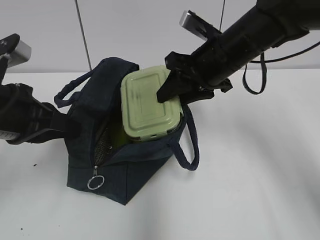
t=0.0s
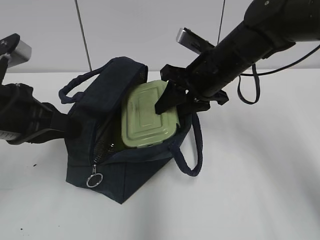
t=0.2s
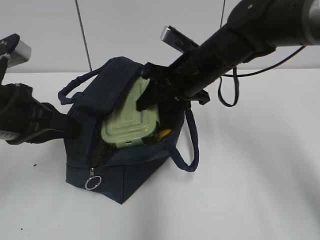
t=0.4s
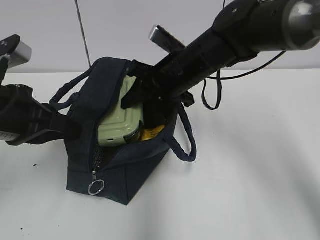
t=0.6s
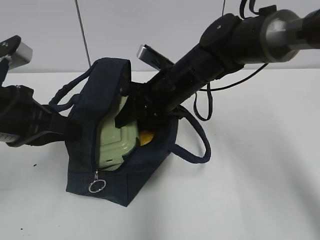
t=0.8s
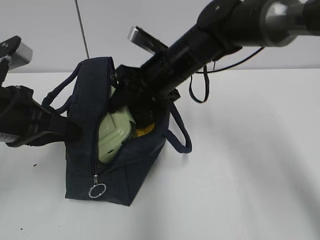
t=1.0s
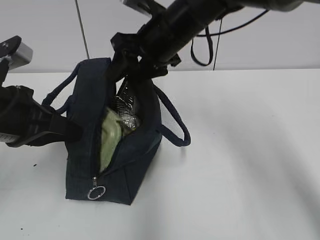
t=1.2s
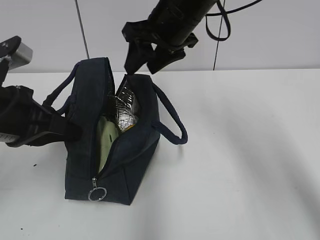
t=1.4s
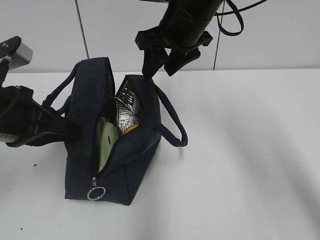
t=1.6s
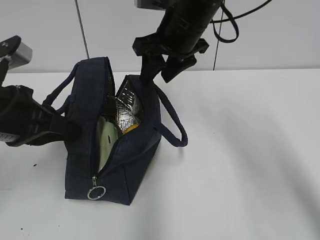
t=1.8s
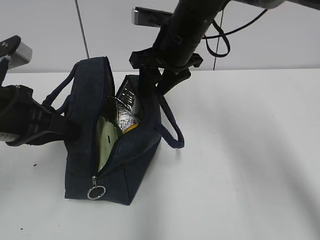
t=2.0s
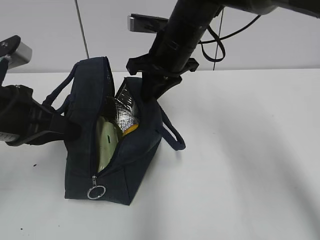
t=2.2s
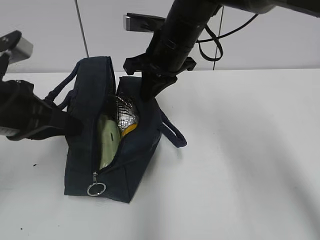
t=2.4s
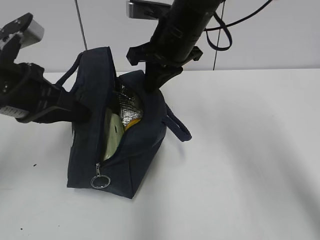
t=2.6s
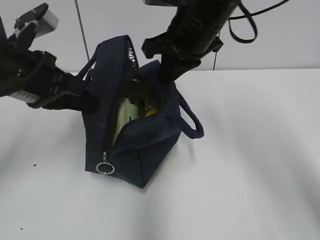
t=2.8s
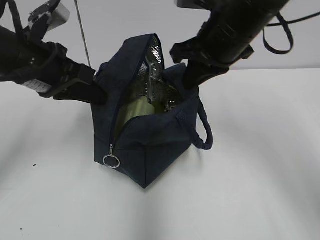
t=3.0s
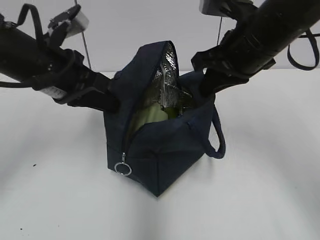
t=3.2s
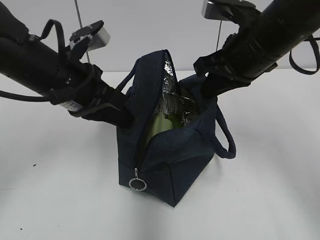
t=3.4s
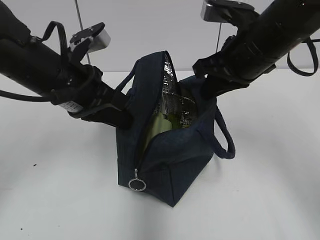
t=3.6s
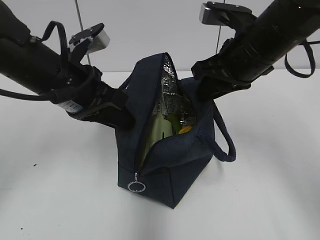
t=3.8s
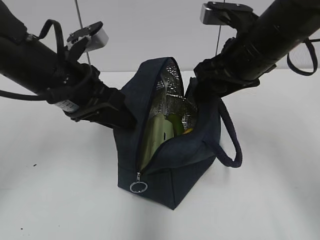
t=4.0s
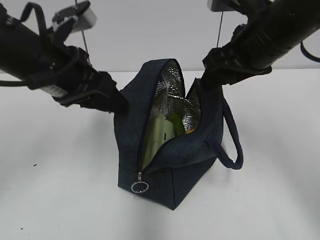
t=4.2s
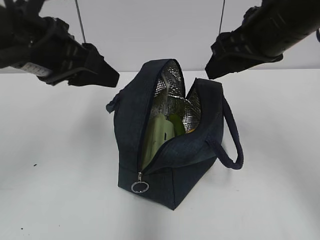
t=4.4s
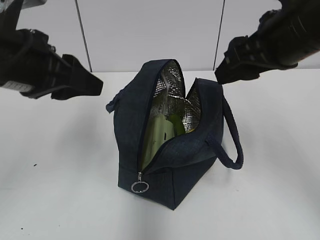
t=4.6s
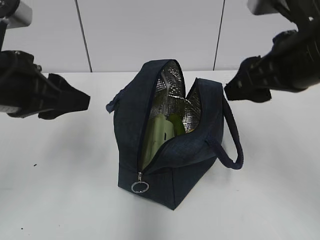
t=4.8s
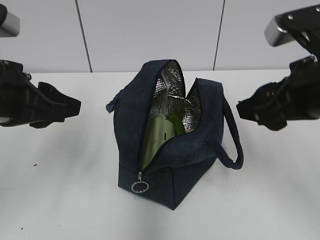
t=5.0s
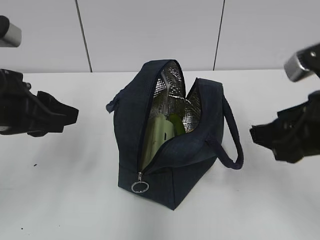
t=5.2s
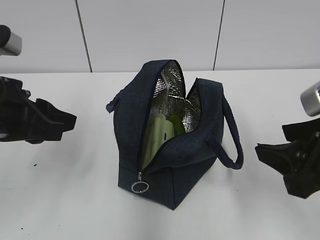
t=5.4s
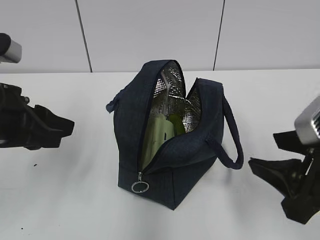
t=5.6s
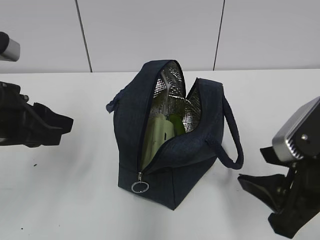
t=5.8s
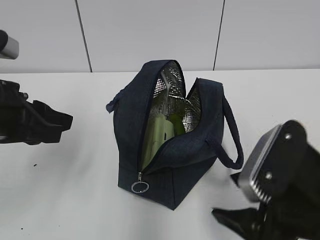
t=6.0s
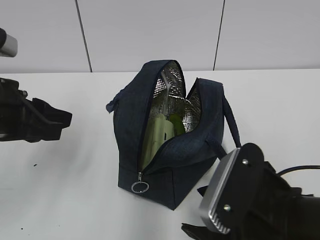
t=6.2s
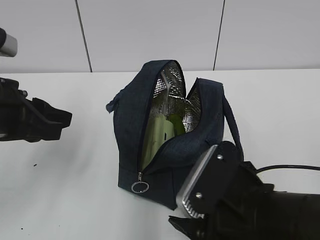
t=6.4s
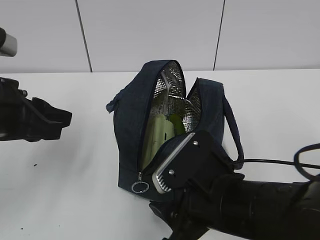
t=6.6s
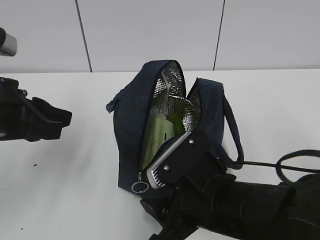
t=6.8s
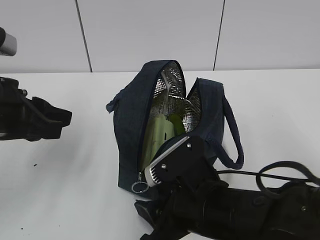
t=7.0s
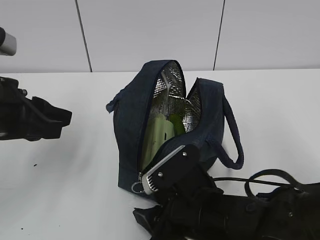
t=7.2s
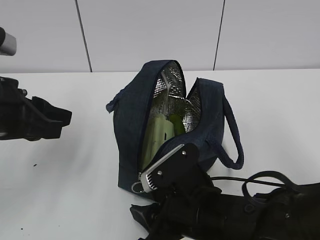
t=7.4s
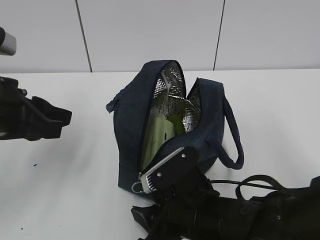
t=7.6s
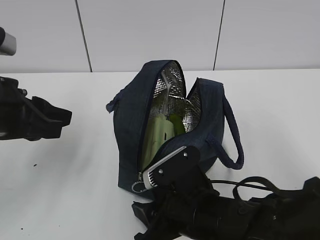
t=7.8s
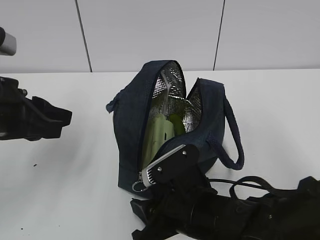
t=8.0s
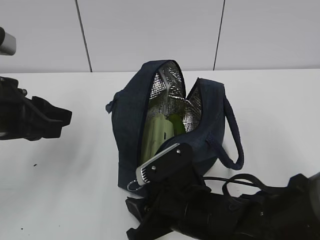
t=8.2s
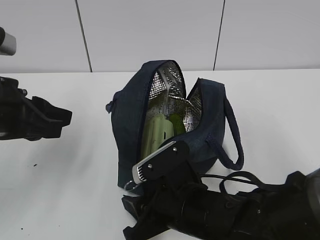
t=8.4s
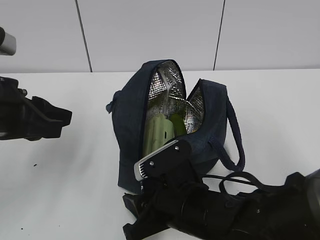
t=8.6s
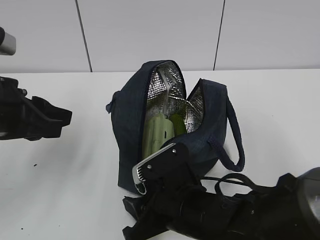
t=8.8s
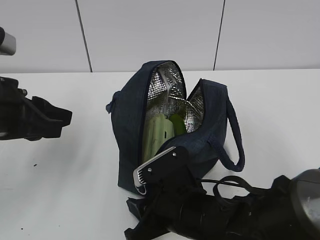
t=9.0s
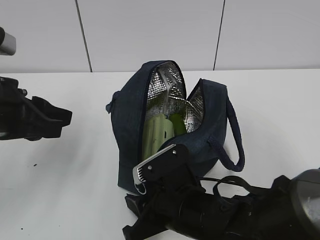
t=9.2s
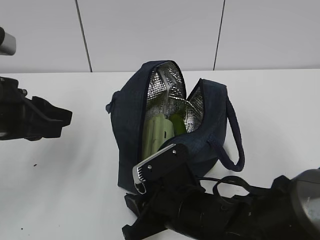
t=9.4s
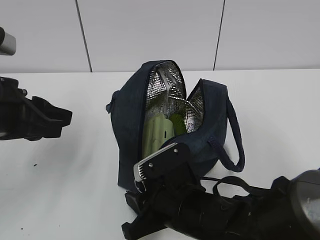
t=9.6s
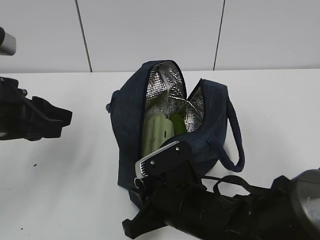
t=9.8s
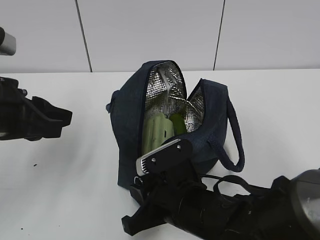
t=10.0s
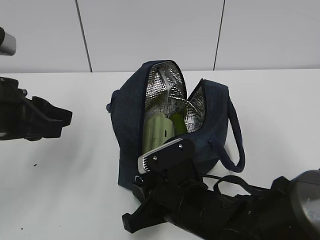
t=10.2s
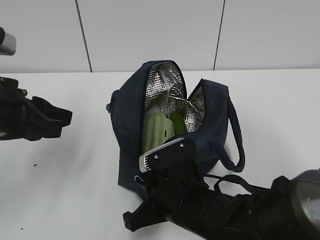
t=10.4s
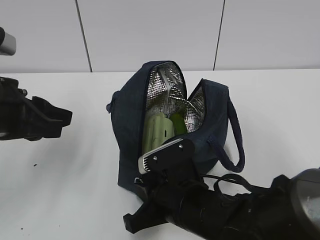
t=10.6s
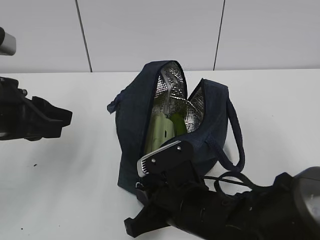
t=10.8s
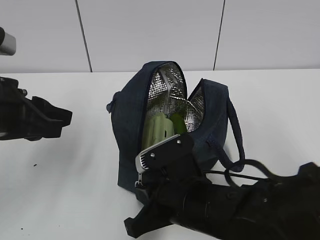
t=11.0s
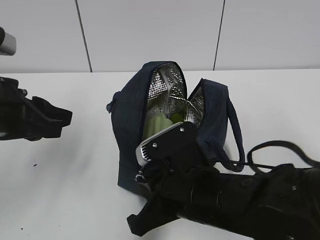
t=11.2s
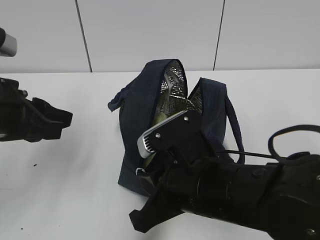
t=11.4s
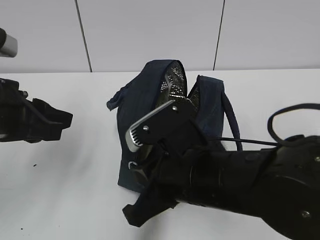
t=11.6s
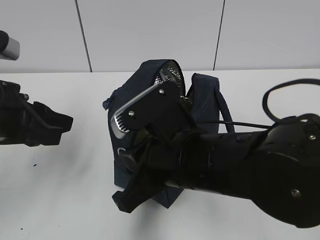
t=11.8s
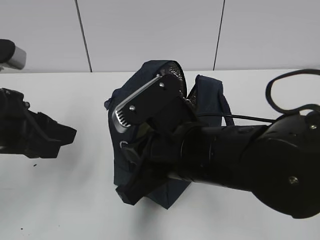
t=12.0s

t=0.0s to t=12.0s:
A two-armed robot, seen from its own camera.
Step, t=1.4s to t=2.4s: Grab the lunch bag with your right hand.
Step, t=2.6s to t=4.0s: Move the lunch bag to the right.
t=0.0s to t=1.6s: The right gripper is displaced upward by some 5 cm.
t=1.6s to t=3.0s: The right gripper shifts approximately 5 cm backward, and closes up, while the left gripper moves forward, approximately 5 cm.
t=3.0s to t=4.4s: The right gripper moves about 5 cm, and opens. Meanwhile the left gripper changes place by roughly 5 cm, and opens.
t=4.4s to t=6.0s: The right gripper travels backward and downward by some 20 cm. Meanwhile the left gripper is displaced downward and backward by some 10 cm.
t=6.0s to t=7.6s: The right gripper is displaced to the left and downward by about 15 cm.
t=7.6s to t=9.0s: The grippers make only small movements.
t=9.0s to t=10.4s: The right gripper closes.
t=10.4s to t=12.0s: The right gripper goes roughly 10 cm upward.

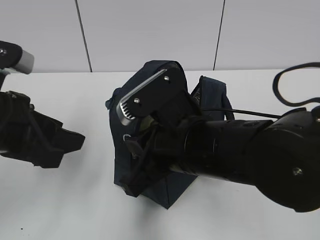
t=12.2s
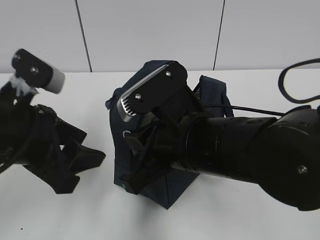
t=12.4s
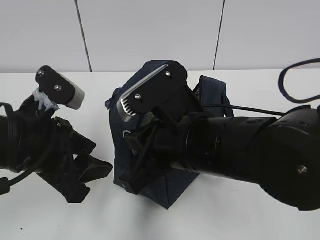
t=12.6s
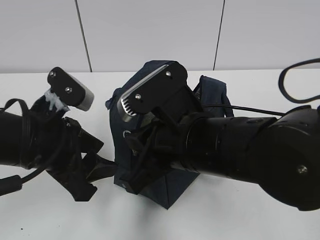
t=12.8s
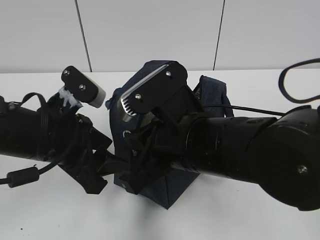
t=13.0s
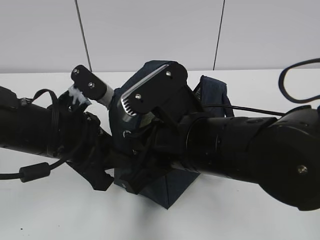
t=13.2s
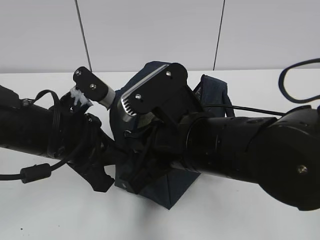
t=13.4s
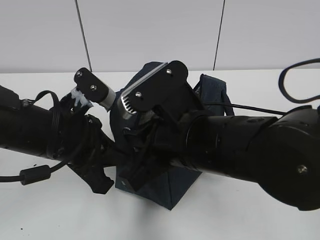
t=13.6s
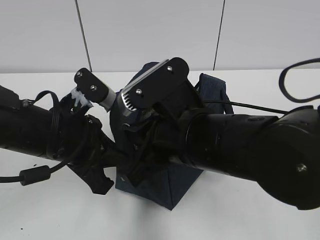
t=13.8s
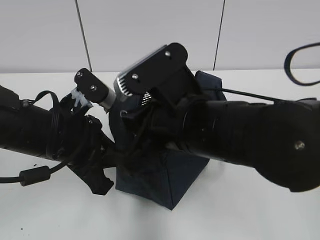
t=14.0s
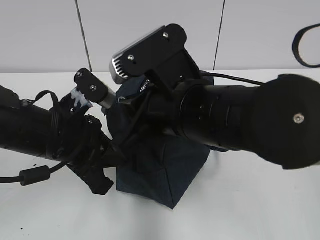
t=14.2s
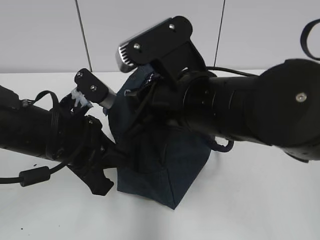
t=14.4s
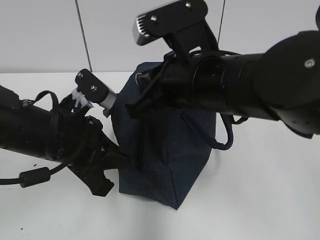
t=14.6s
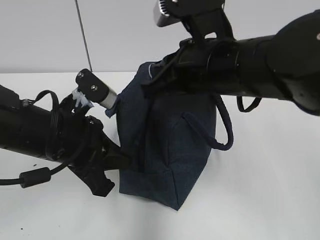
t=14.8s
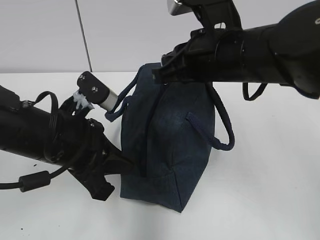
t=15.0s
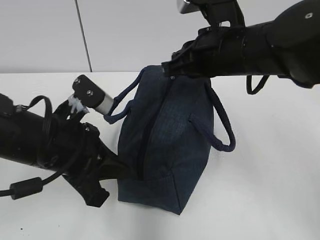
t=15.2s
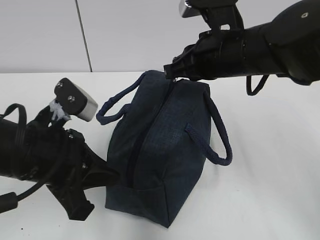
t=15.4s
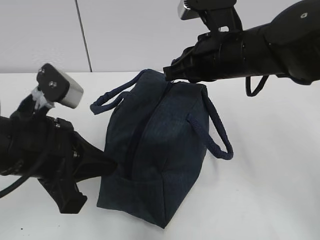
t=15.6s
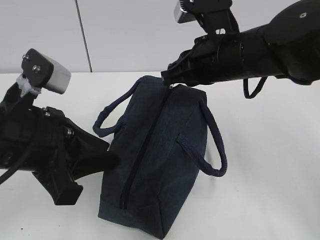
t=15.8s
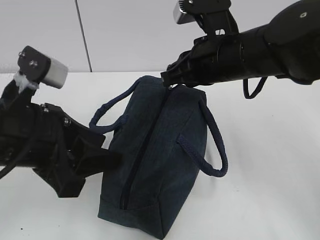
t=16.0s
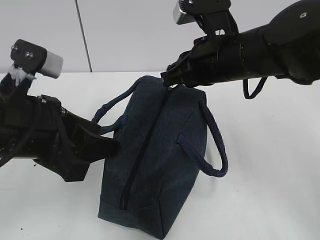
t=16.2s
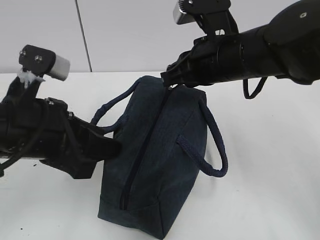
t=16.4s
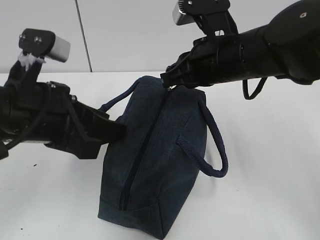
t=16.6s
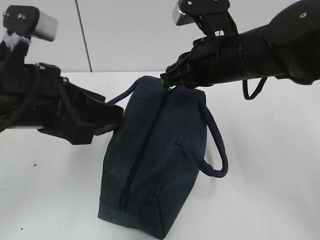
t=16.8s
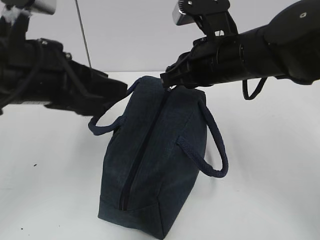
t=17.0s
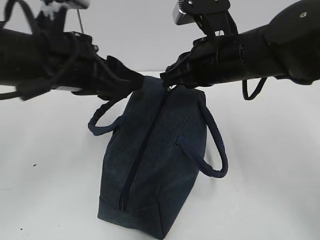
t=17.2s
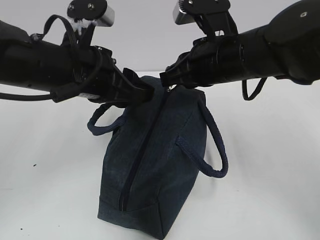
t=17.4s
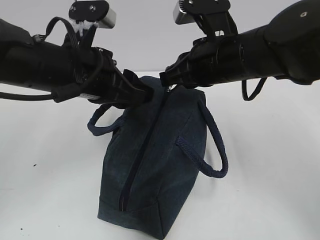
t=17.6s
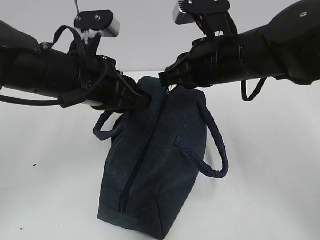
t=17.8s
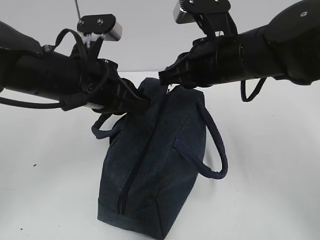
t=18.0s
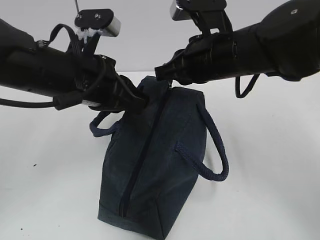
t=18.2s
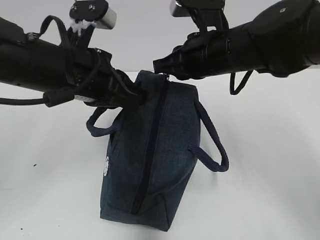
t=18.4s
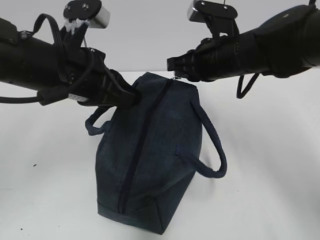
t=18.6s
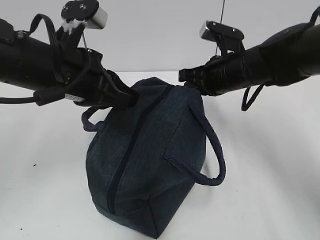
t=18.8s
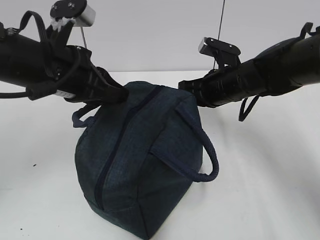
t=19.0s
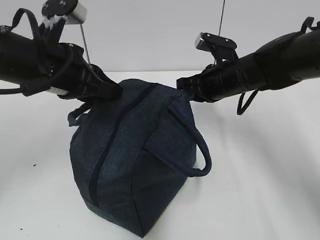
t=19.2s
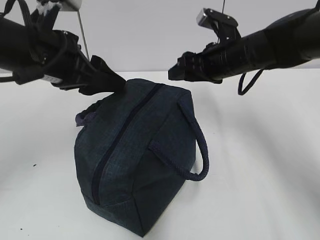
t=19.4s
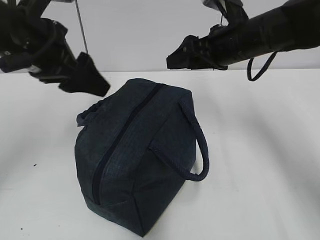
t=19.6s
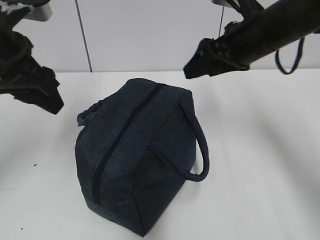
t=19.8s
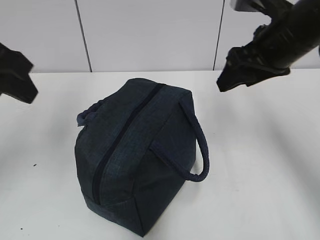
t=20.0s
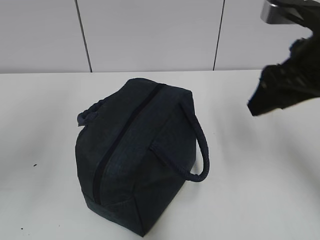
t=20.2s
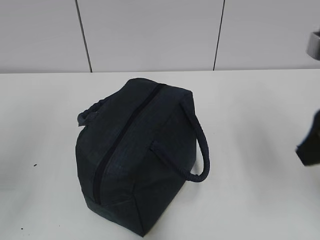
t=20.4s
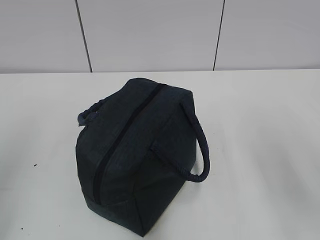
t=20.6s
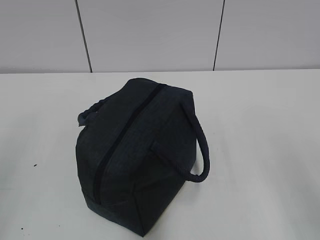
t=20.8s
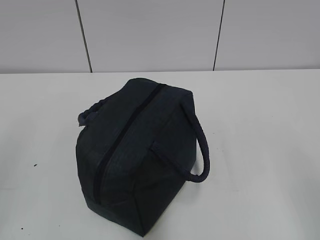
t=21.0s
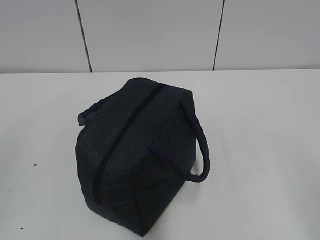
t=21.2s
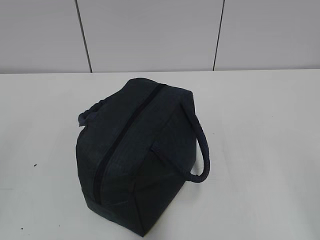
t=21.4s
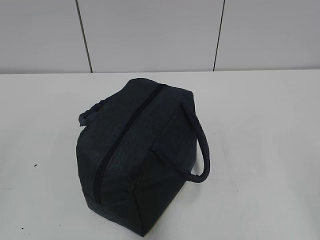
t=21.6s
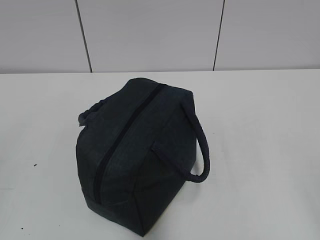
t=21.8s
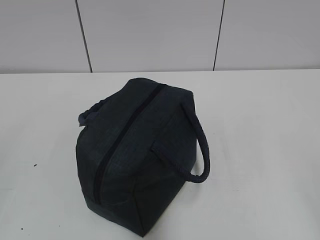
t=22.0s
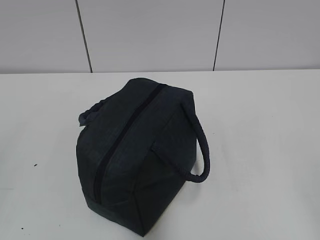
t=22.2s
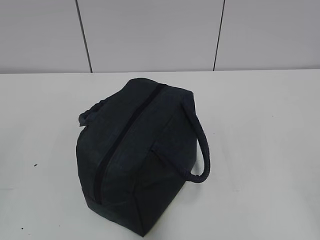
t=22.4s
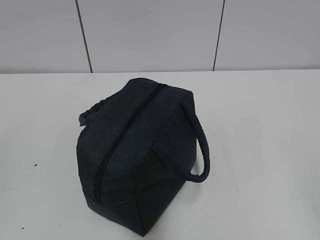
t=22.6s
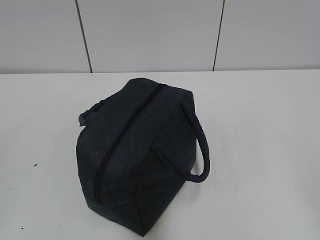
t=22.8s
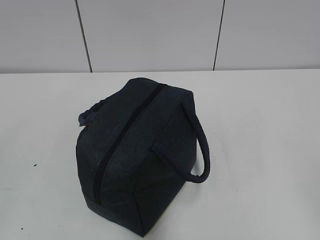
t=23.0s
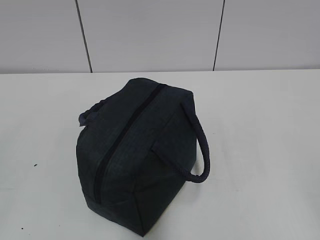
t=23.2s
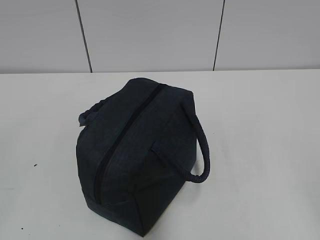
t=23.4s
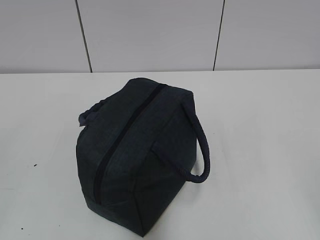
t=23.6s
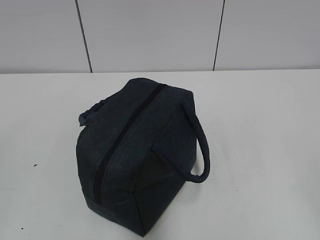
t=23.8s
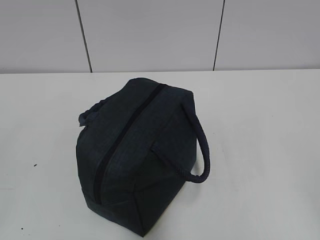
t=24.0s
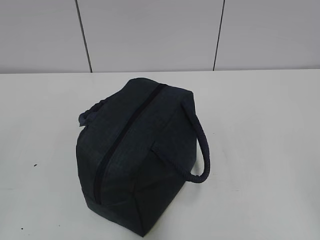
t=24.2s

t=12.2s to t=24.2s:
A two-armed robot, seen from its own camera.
Step, t=12.2s to t=15.6s: Grab the lunch bag with your left hand.
Step, t=15.8s to t=19.2s: Pull the zipper with your right hand.
t=12.2s to t=13.8s: The left gripper moves to the right, some 5 cm, and closes its fingers.
t=13.8s to t=15.2s: The right gripper heads forward and to the right, covering some 10 cm.
t=15.2s to t=16.6s: The left gripper shifts about 5 cm upward, and opens up.
t=16.6s to t=18.2s: The left gripper moves forward, approximately 5 cm, and closes its fingers.
t=18.2s to t=19.8s: The left gripper heads to the left and upward, covering roughly 10 cm, and opens up; the right gripper goes some 5 cm to the right, reaches some 10 cm downward, then returns, and opens its fingers.
t=19.8s to t=21.2s: The left gripper shifts approximately 25 cm backward and to the left, and closes; the right gripper shifts approximately 35 cm backward.
